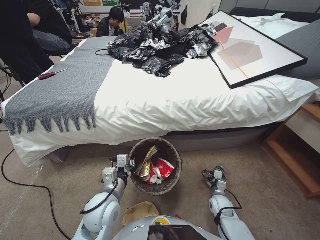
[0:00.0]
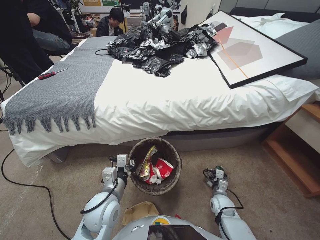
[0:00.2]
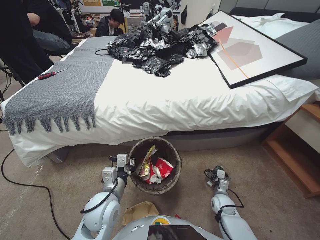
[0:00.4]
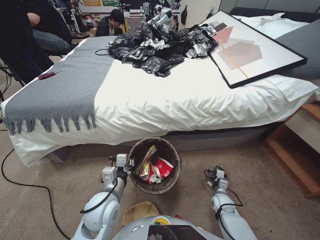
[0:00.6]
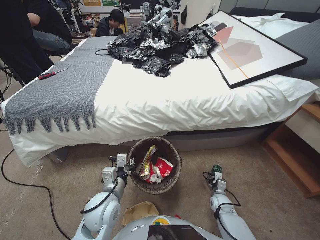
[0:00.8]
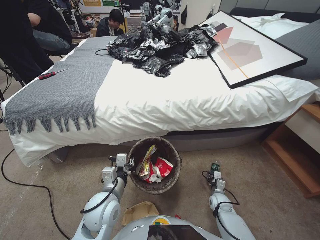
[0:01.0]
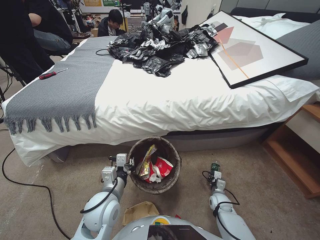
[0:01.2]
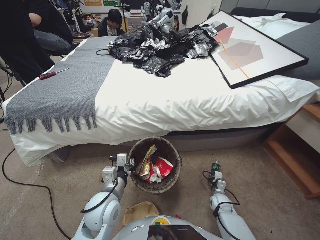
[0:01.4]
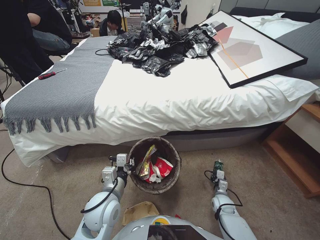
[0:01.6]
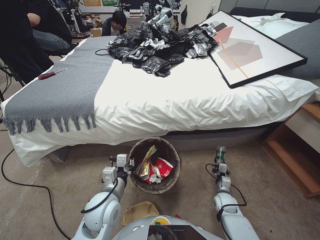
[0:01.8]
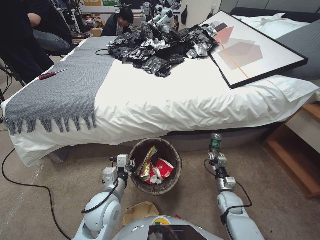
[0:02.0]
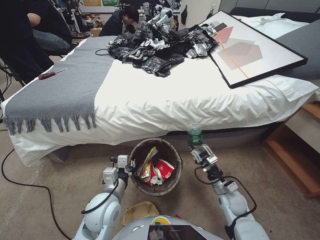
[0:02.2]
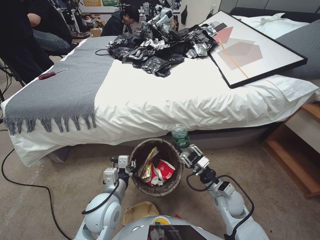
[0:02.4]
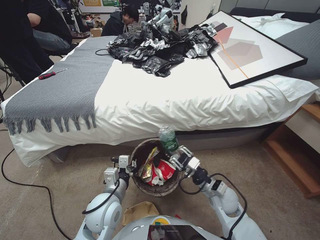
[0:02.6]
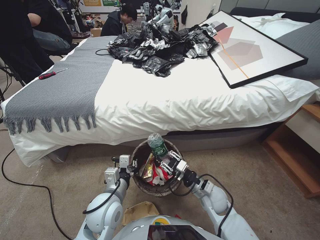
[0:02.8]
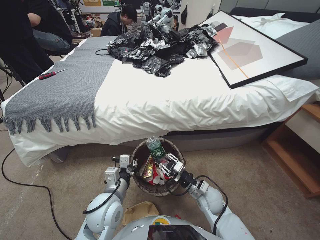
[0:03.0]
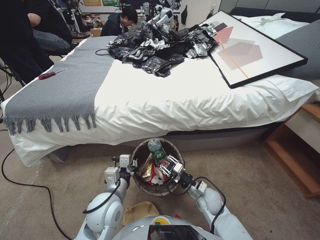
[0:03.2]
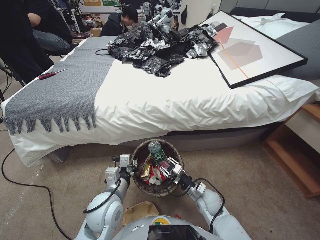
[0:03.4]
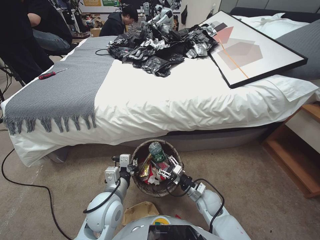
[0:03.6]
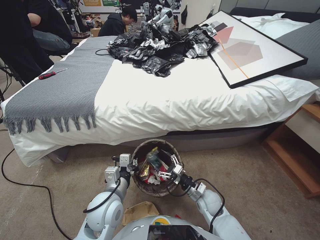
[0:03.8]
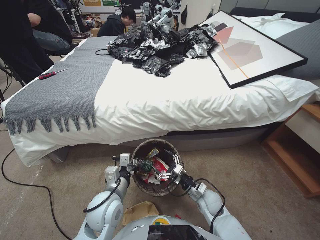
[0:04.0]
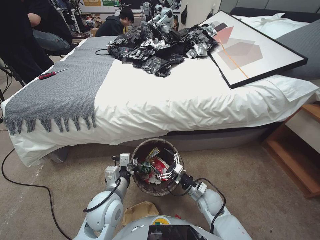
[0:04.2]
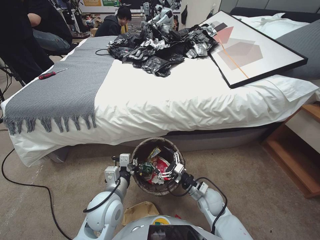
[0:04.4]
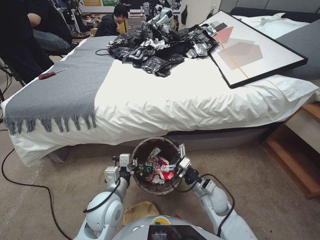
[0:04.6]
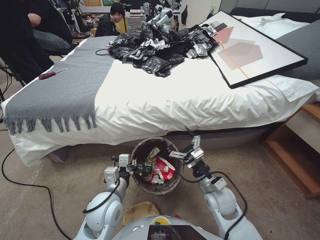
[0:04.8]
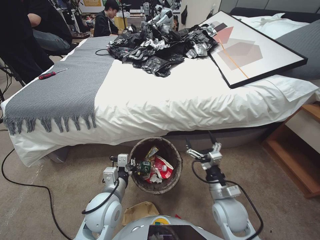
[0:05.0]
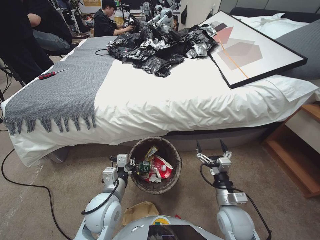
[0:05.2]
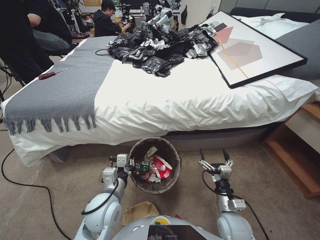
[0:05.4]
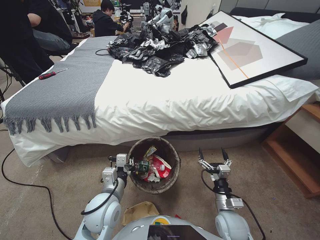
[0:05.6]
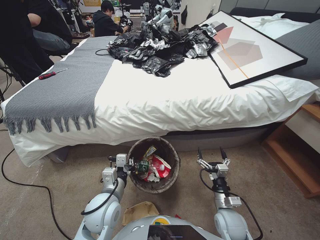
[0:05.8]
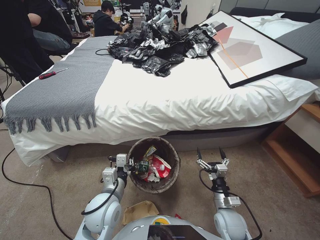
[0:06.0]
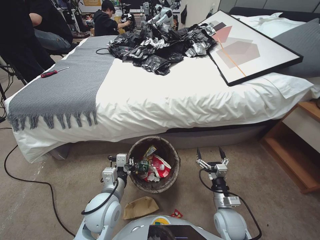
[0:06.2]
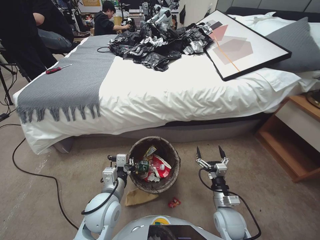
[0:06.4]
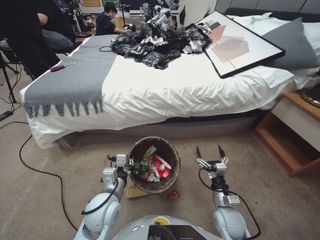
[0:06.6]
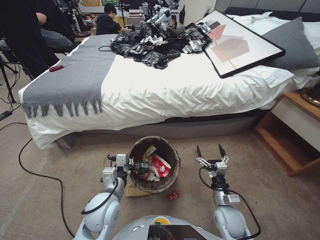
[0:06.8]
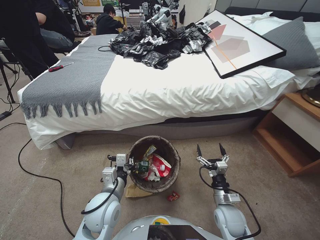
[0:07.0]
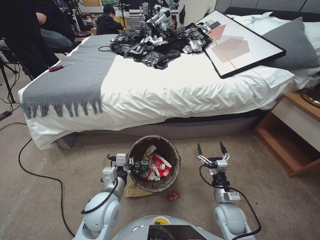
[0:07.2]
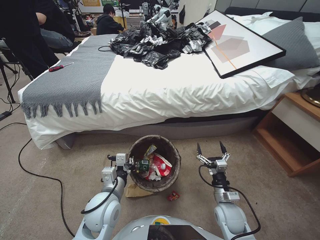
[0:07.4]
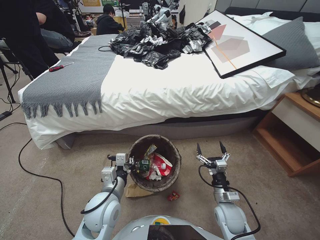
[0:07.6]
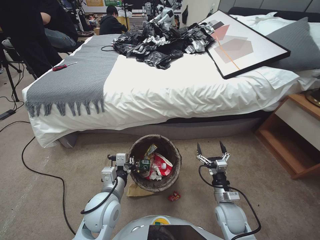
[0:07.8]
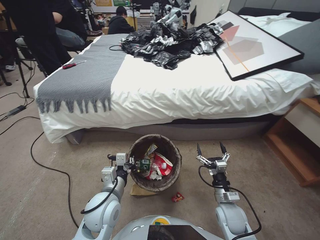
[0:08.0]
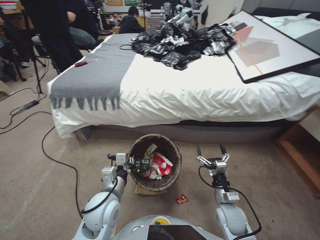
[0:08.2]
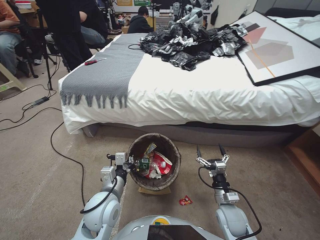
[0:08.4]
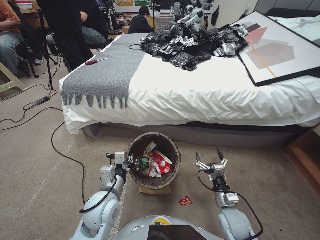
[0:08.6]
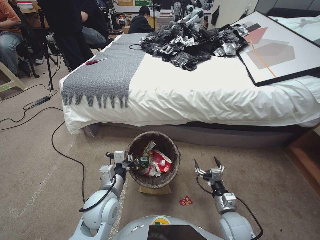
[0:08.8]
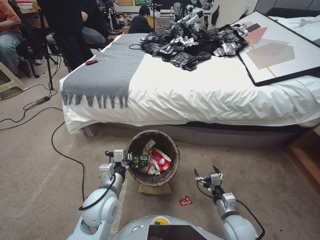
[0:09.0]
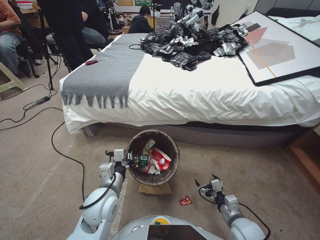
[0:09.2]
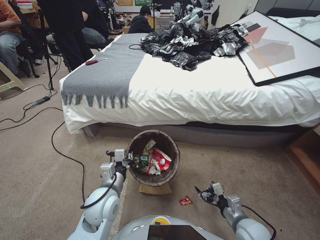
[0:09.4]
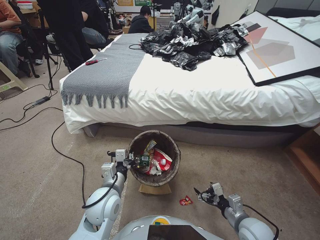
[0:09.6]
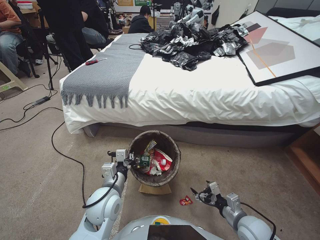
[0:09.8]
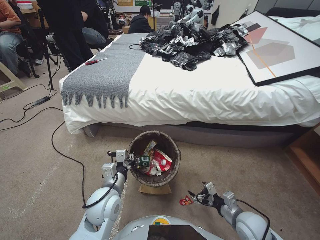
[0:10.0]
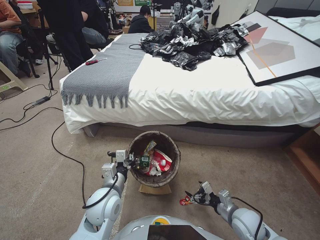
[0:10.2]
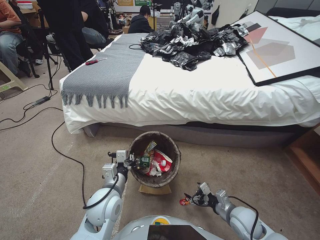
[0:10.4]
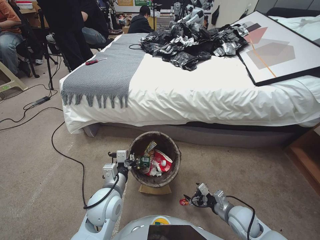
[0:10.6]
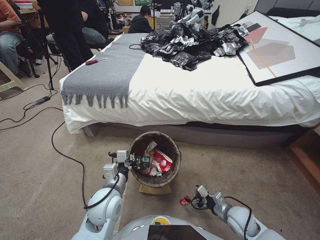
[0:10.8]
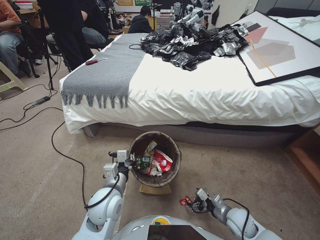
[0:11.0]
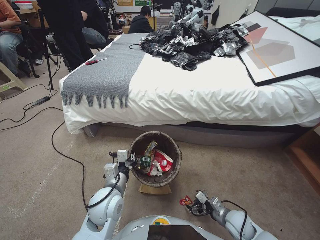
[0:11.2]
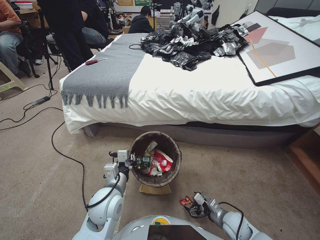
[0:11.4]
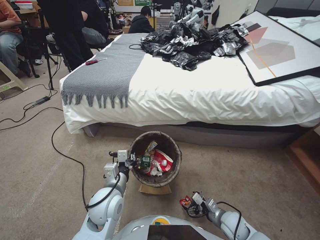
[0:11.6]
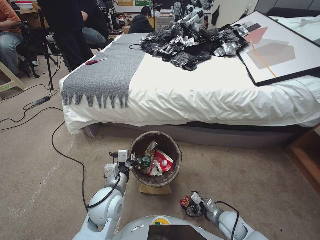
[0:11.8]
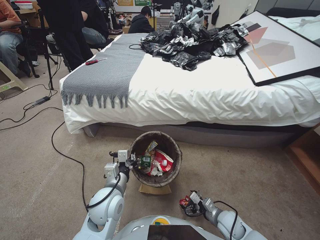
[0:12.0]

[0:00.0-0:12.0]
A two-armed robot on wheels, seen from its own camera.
Task of the whole recording: Pick up the trash bin, then pick up the garbage from the floor and place it into the trash bin.
0:00.0 to 0:01.6: The right gripper closes.
0:01.6 to 0:03.0: The right gripper shifts about 20 cm upward and to the left.
0:03.0 to 0:04.4: The right gripper opens.
0:04.4 to 0:06.0: The right gripper shifts roughly 5 cm backward, and moves about 10 cm upward and comes back.
0:10.4 to 0:12.0: The right gripper is displaced downward by roughly 10 cm.

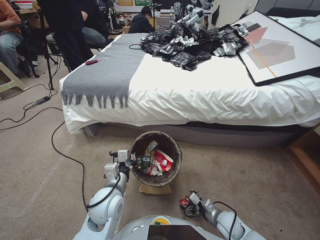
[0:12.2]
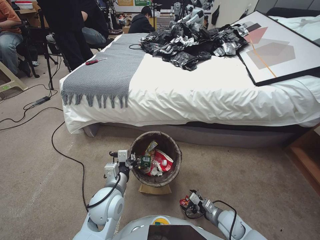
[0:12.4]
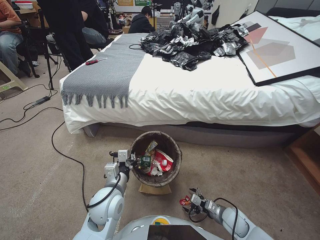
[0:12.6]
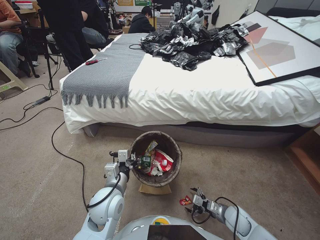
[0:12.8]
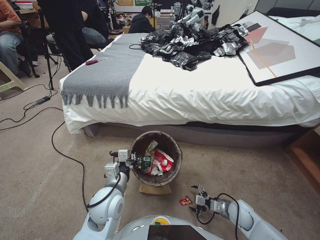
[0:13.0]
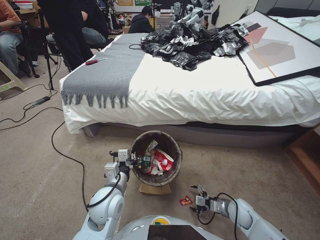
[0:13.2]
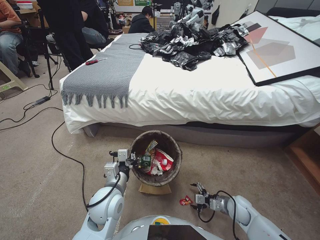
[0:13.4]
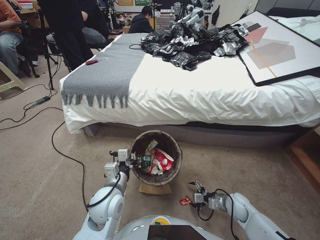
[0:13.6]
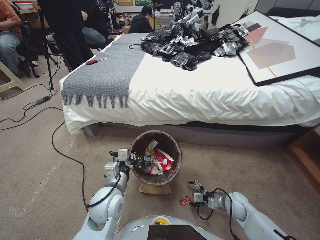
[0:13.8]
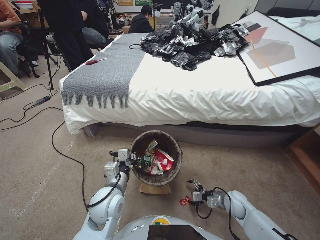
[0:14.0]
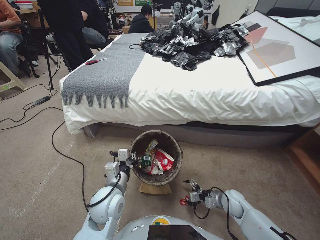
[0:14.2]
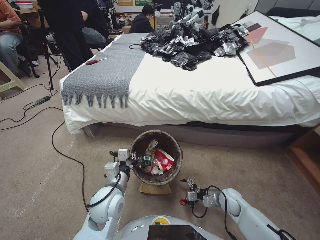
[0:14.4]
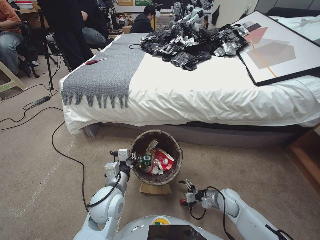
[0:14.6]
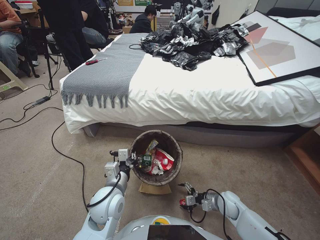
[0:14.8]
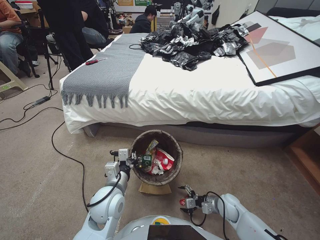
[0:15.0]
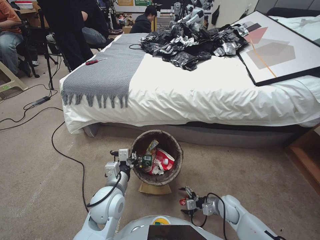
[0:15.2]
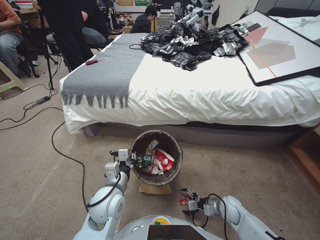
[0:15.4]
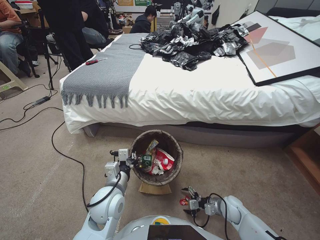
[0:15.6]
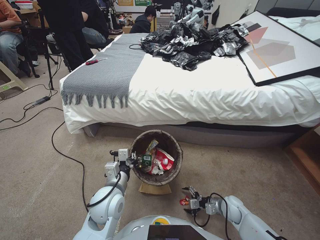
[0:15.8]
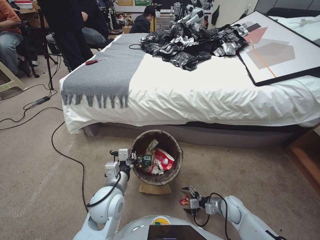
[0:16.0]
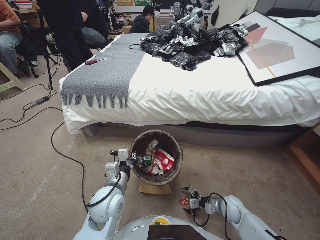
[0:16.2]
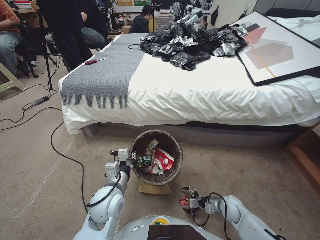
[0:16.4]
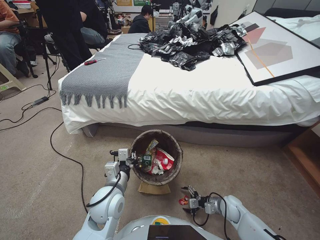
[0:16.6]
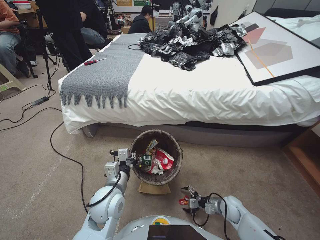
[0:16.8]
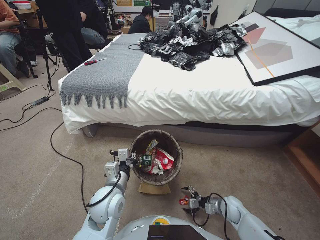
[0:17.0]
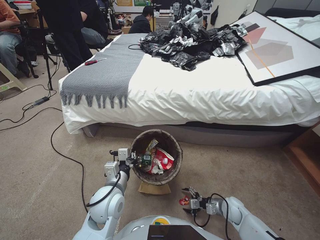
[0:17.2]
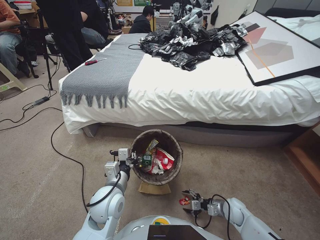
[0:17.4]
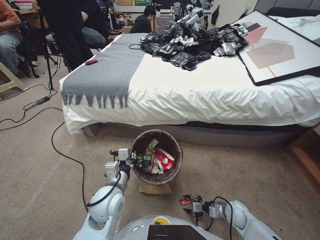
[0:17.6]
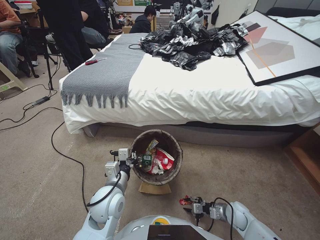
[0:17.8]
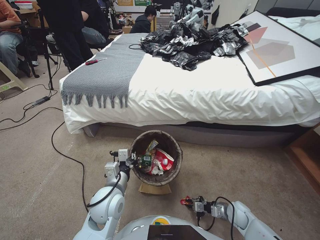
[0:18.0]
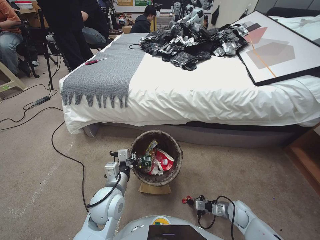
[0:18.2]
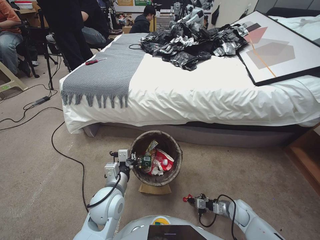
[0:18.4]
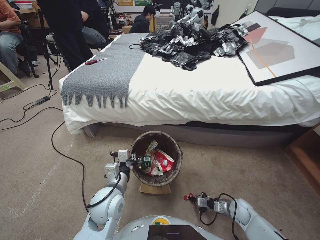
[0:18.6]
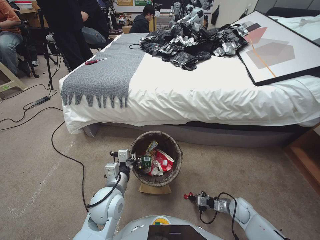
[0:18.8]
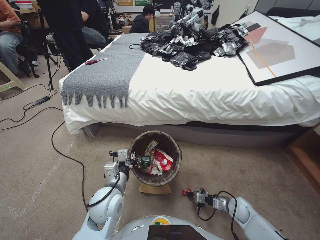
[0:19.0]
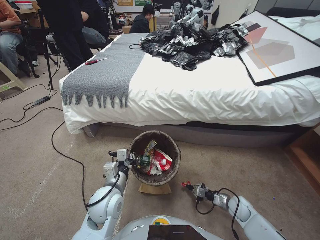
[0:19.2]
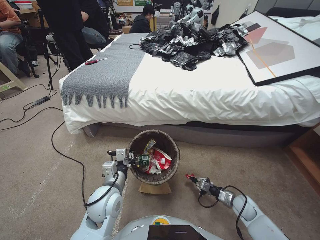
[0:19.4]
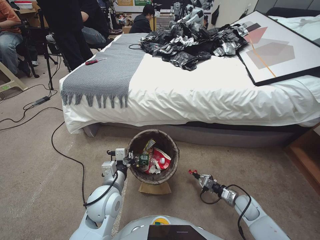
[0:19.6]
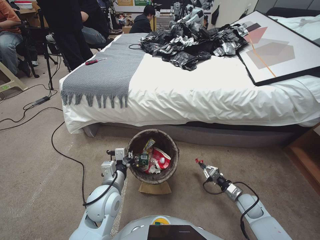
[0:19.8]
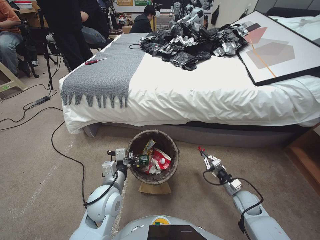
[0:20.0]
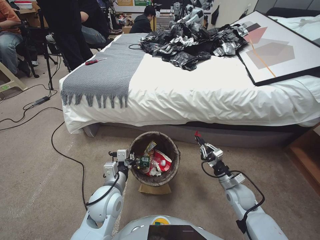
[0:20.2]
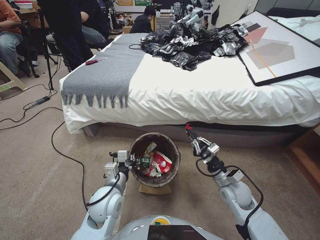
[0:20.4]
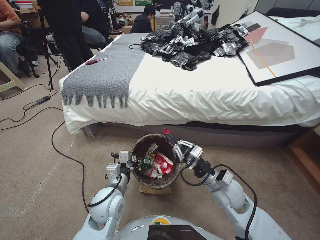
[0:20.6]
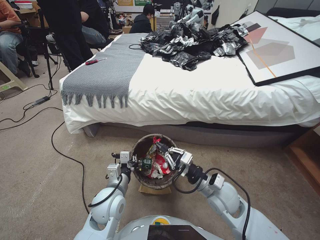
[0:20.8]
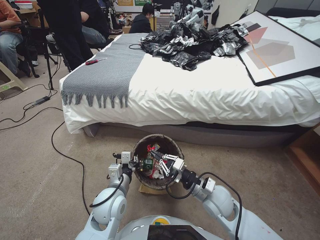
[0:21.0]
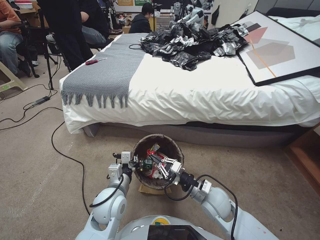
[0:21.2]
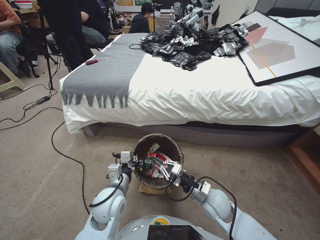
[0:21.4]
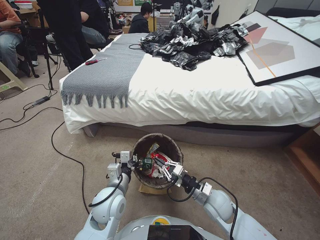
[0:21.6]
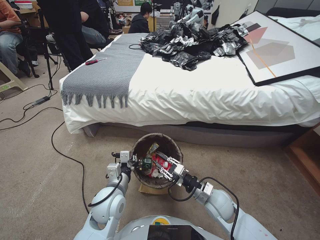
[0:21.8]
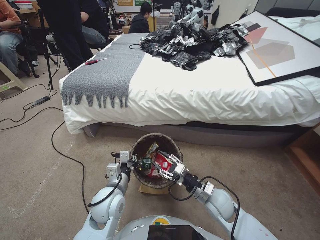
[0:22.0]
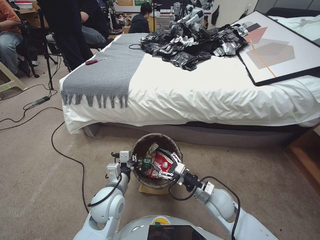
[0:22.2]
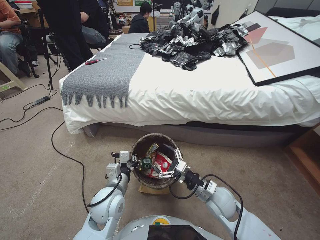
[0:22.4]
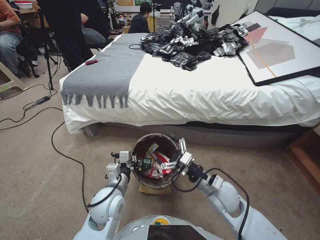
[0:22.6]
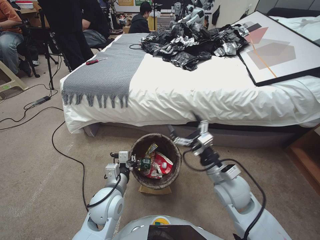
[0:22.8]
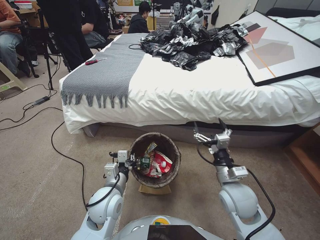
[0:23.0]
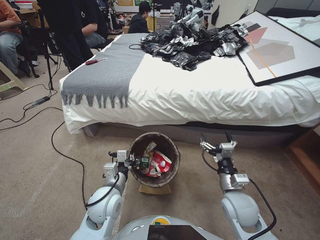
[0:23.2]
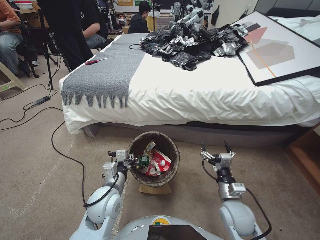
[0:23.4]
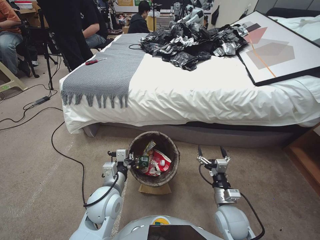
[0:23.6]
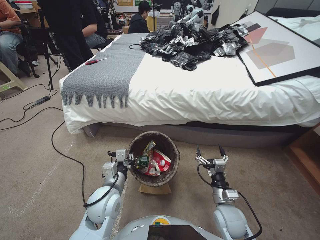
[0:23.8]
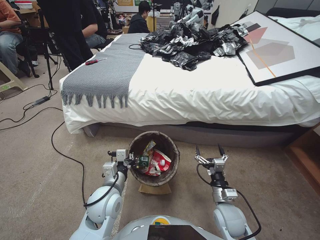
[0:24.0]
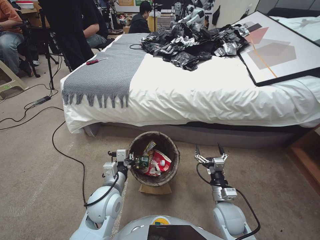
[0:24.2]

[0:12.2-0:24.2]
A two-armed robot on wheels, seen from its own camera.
Task of the whole recording: Pick up the trash bin, then pick up the garbage from the floor and place it into the trash bin.
0:12.2 to 0:13.8: The right gripper heads forward and to the right, covering roughly 10 cm.
0:13.8 to 0:16.6: The grippers move only a little.
0:16.6 to 0:18.2: The right gripper closes.
0:19.8 to 0:21.2: The right gripper moves to the left and upward, roughly 25 cm.
0:21.2 to 0:22.6: The right gripper opens its fingers.
0:22.6 to 0:24.2: The right gripper shifts some 5 cm downward.
